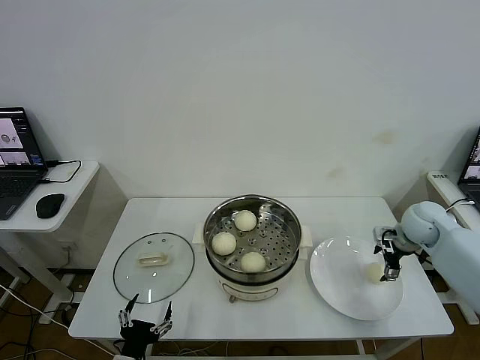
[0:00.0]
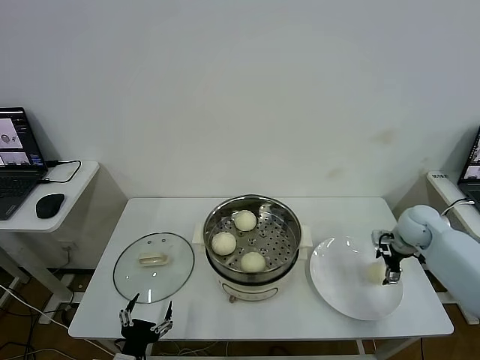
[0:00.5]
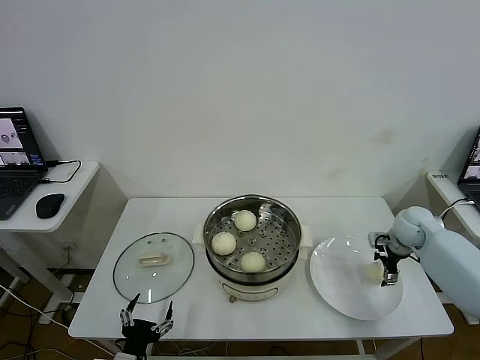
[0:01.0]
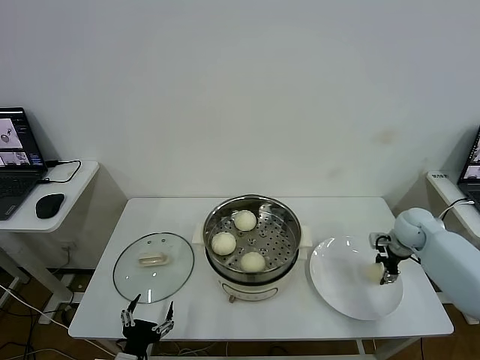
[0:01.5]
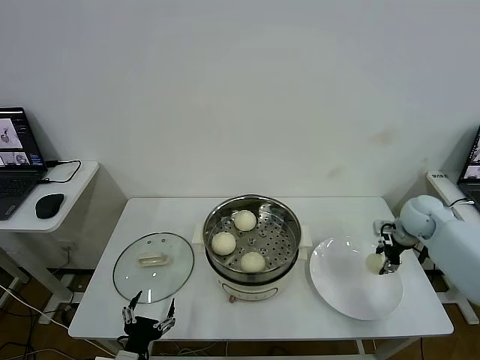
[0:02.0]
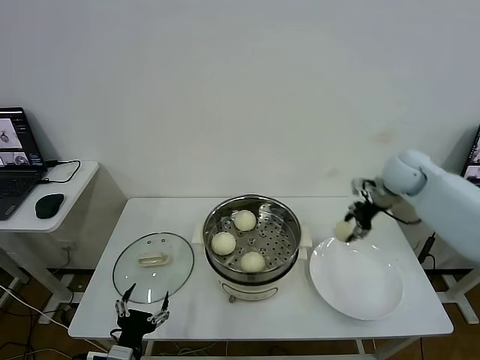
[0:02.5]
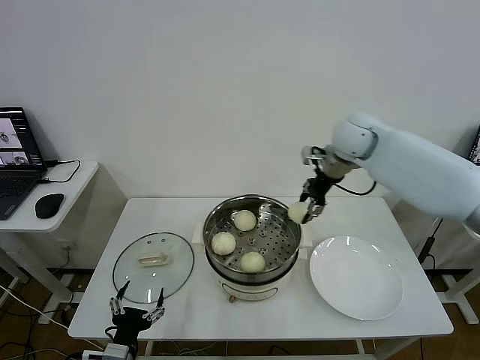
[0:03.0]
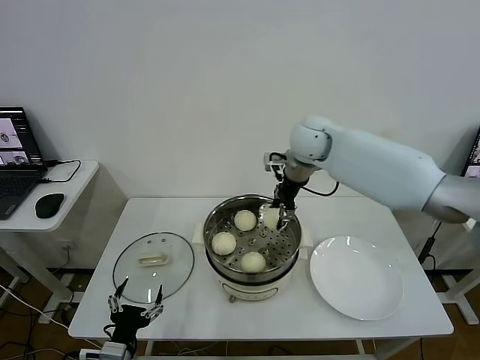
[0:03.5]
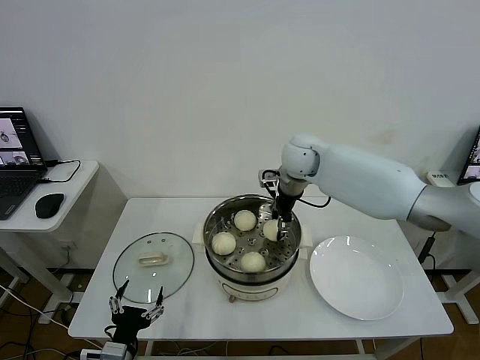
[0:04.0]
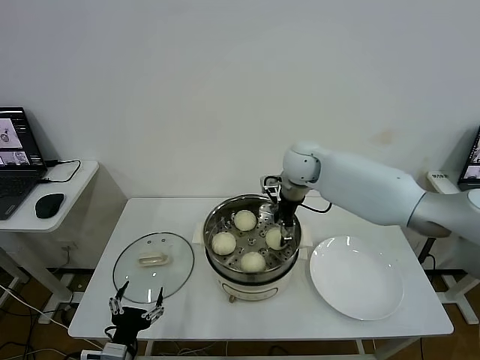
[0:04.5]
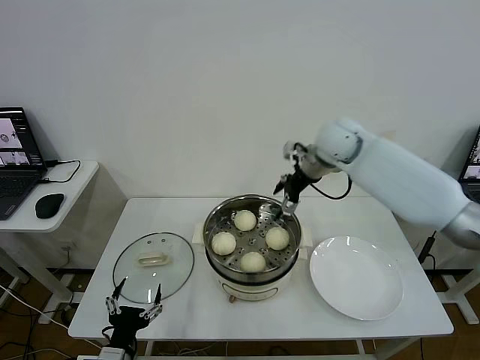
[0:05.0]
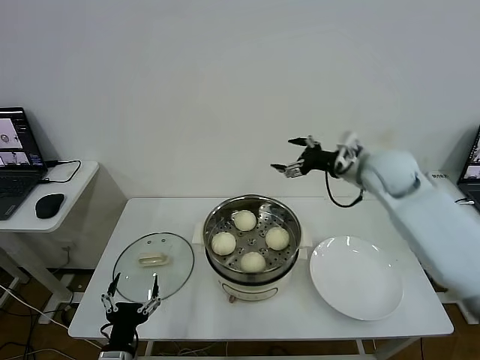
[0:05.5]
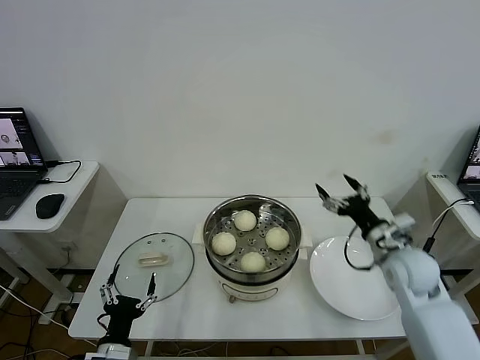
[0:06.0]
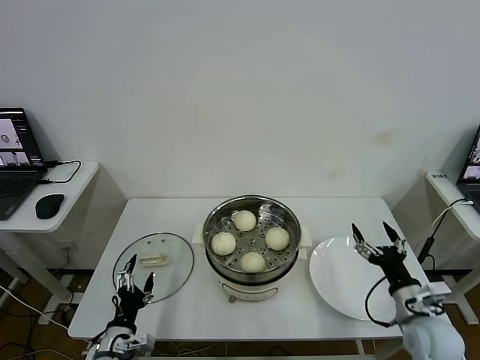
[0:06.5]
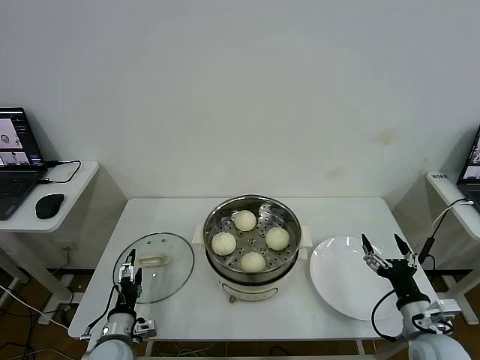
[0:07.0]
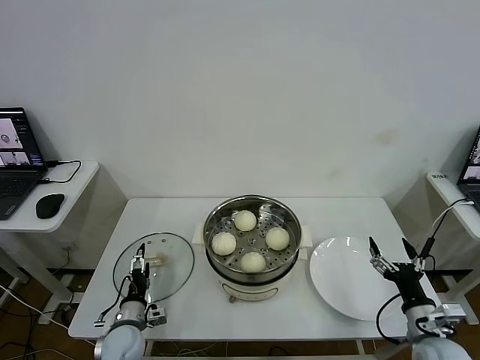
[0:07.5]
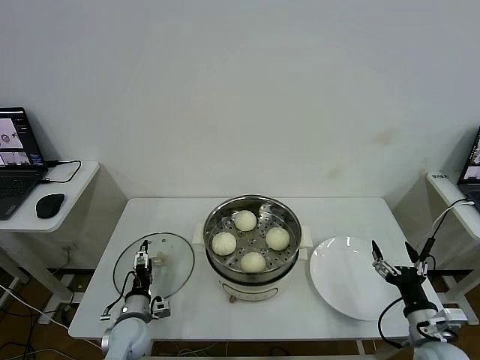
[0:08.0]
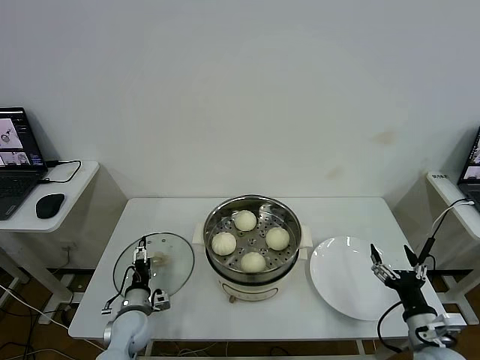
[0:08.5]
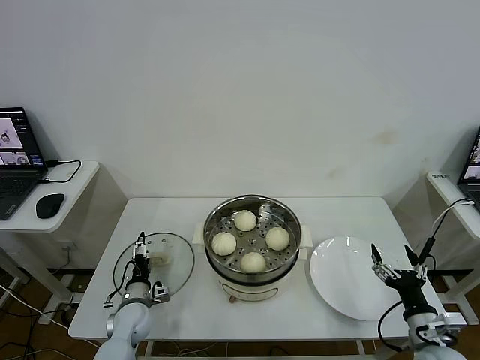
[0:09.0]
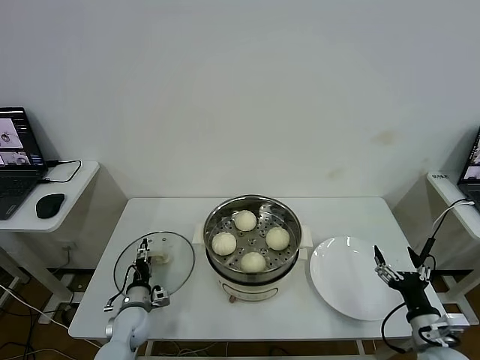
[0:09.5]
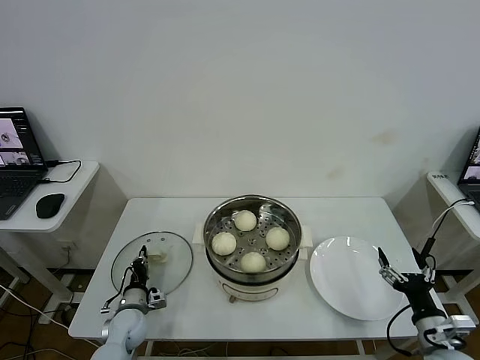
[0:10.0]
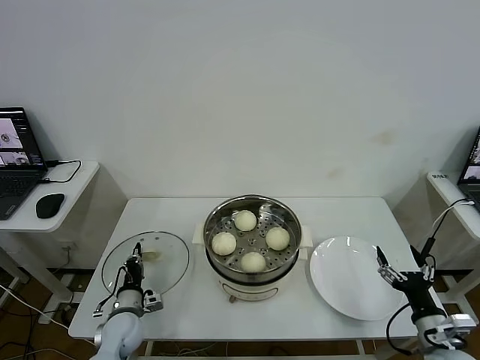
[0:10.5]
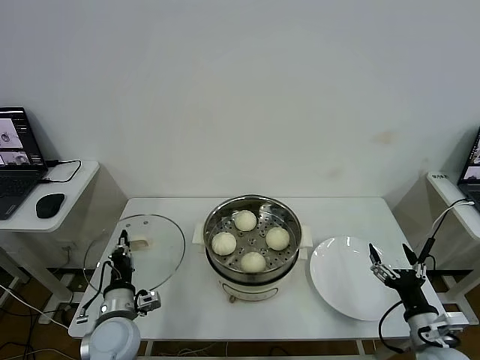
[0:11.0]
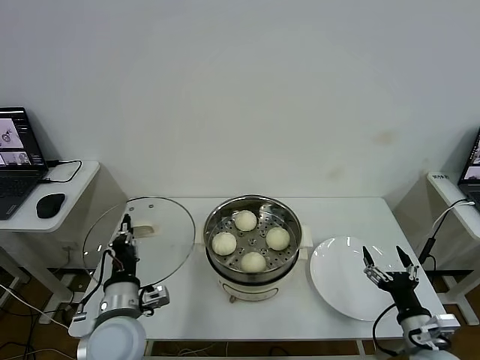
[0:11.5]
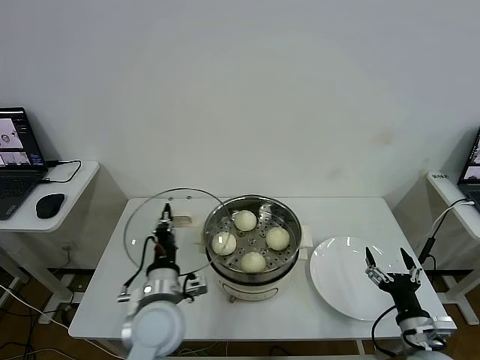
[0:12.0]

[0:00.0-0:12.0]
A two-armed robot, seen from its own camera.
Step, 0:02.0 to 0:04.5: Place the baozi on the steamer with right gripper.
Step, 0:05.0 to 0:10.0: Grasp the pot lid with left gripper.
0:00.0 to 0:02.0: The right gripper closes.
0:02.0 to 0:04.0: The right gripper travels to the left by some 30 cm.
0:04.0 to 0:06.0: The right gripper moves backward, to the right and downward, roughly 35 cm, and opens.
0:06.0 to 0:08.0: The left gripper travels forward and downward by roughly 15 cm, while the right gripper shifts roughly 20 cm backward and downward.
0:08.0 to 0:10.0: The left gripper closes.
0:10.0 to 0:12.0: The left gripper travels upward and to the right by roughly 25 cm.

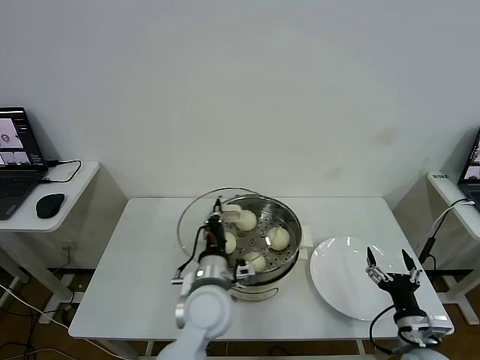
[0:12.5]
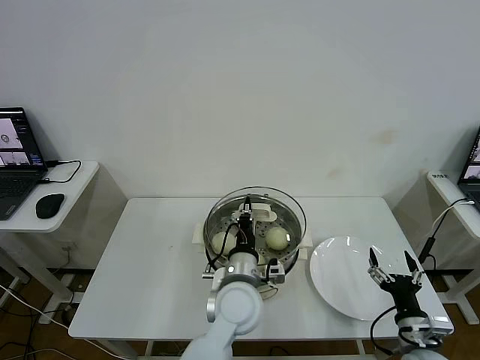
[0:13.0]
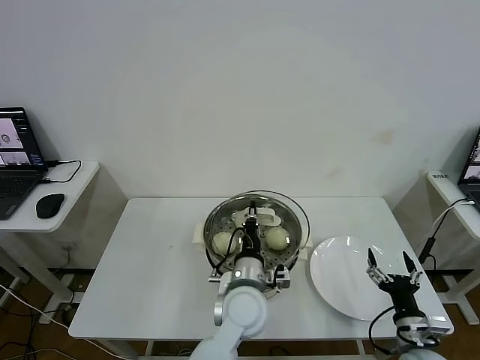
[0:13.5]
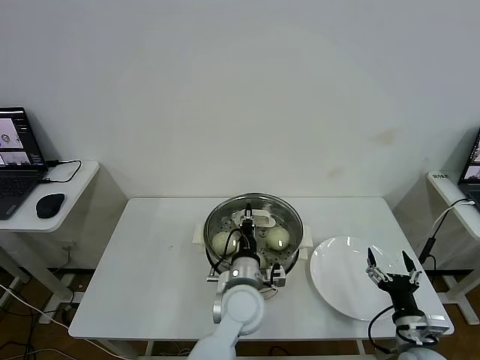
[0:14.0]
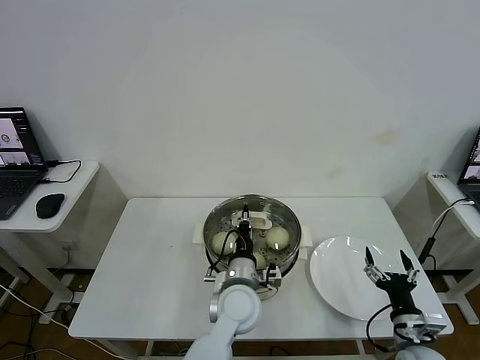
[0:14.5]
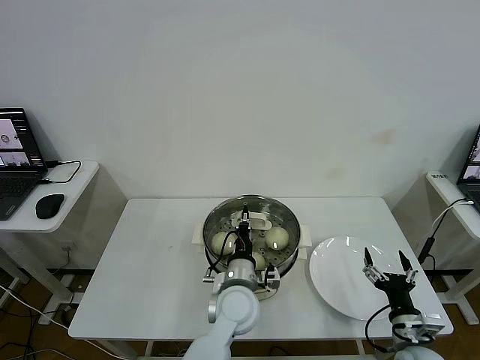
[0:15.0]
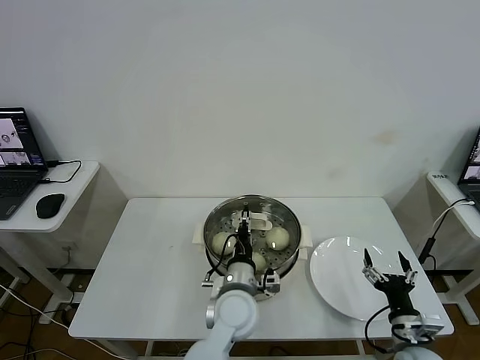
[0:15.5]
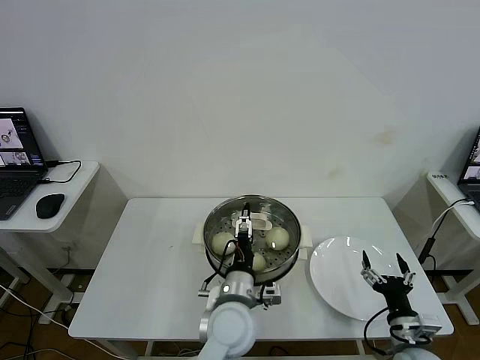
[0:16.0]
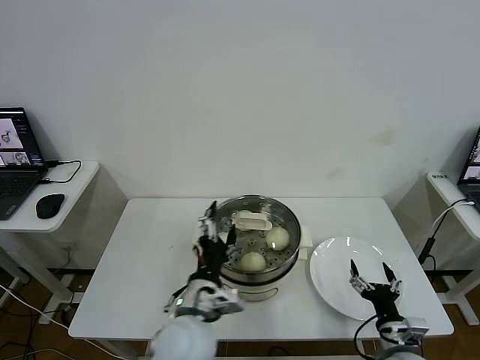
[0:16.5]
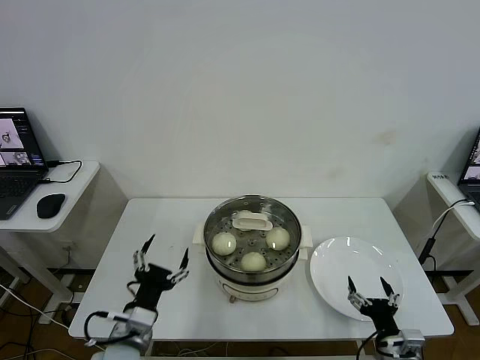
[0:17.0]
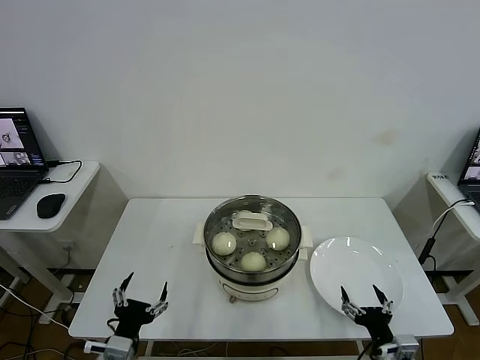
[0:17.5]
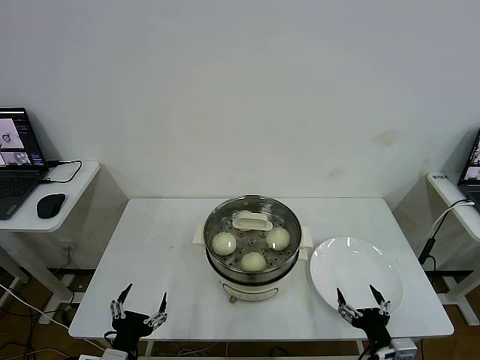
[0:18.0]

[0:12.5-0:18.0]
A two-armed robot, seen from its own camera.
Step, 0:12.5 to 0:15.0: Place the pot lid on the steamer with left gripper.
0:12.5 to 0:14.5: The left gripper is displaced to the right by about 5 cm.
0:14.5 to 0:16.0: The left gripper opens.
0:16.0 to 0:18.0: The left gripper travels to the left and backward by roughly 30 cm; the right gripper goes approximately 5 cm backward.

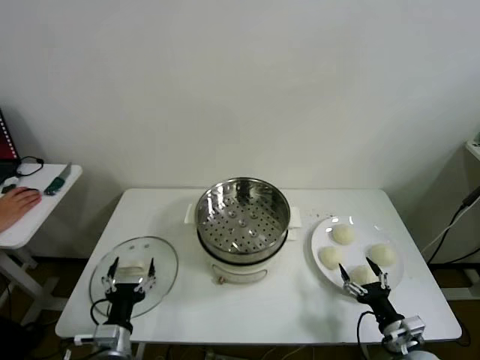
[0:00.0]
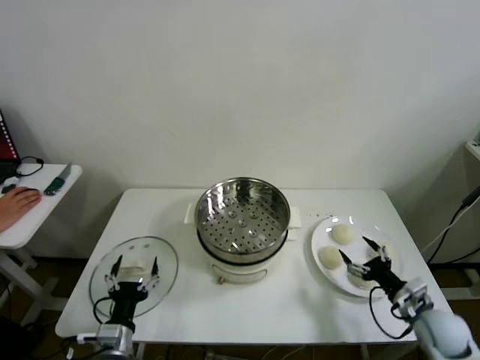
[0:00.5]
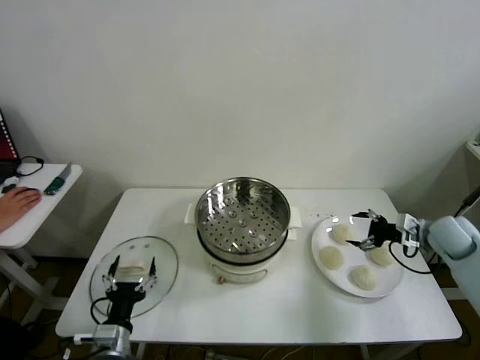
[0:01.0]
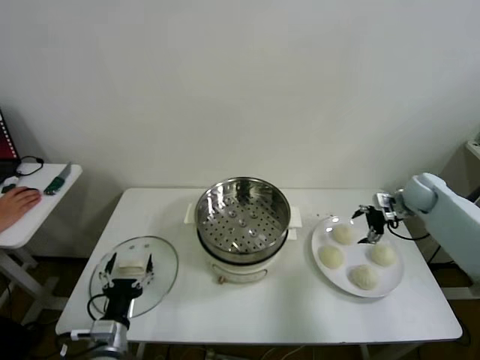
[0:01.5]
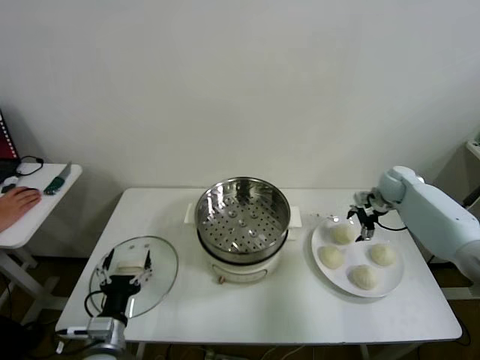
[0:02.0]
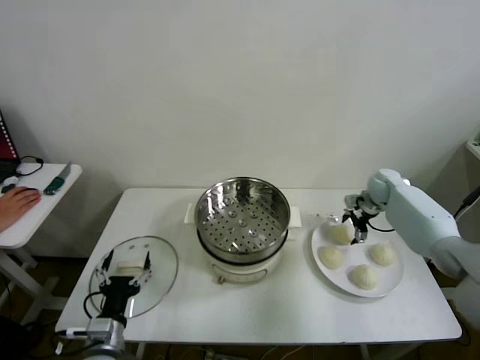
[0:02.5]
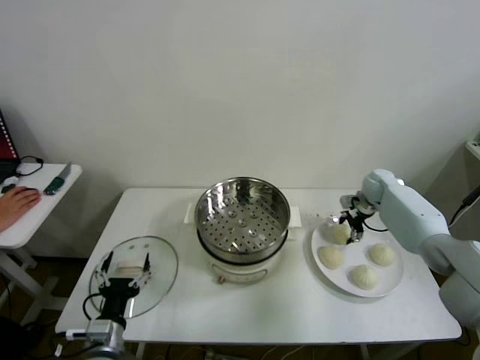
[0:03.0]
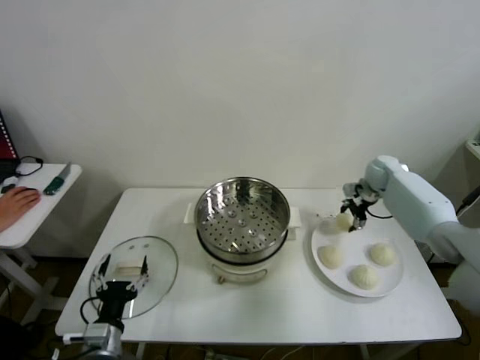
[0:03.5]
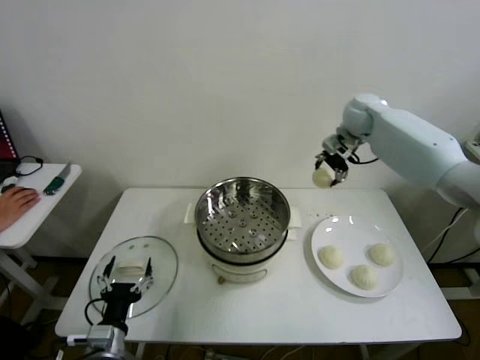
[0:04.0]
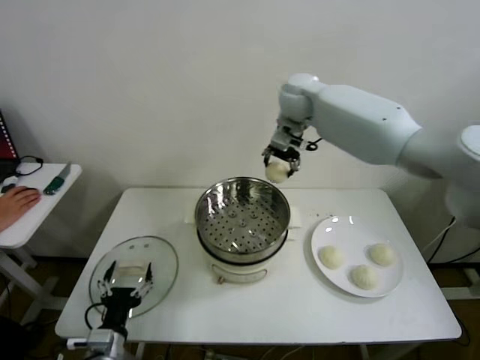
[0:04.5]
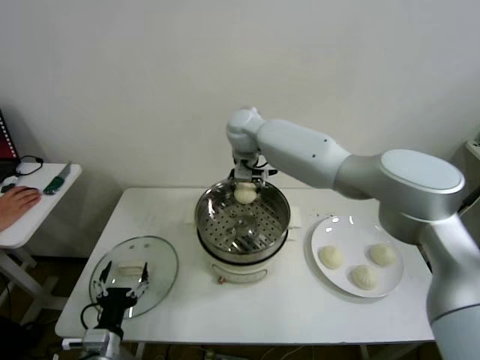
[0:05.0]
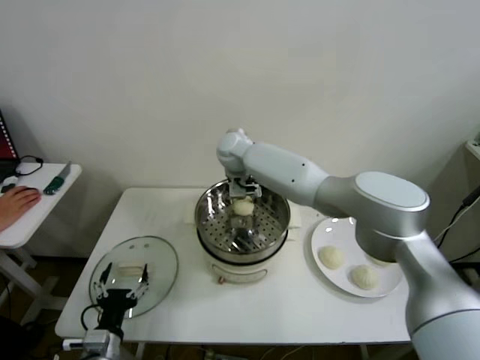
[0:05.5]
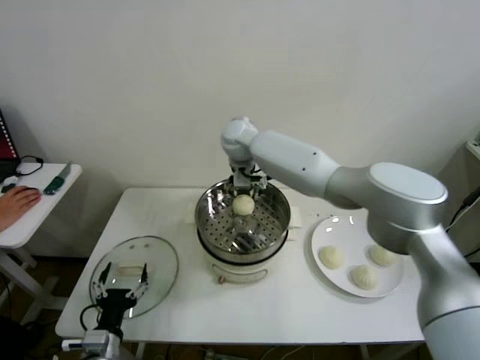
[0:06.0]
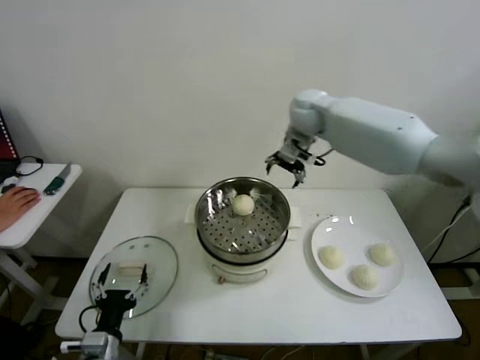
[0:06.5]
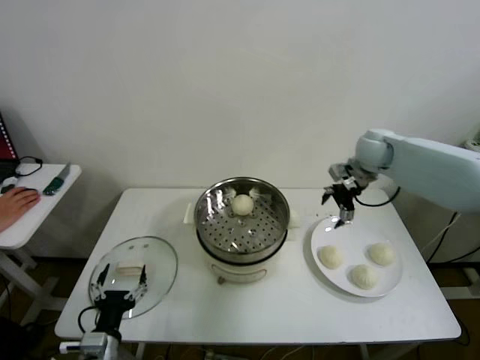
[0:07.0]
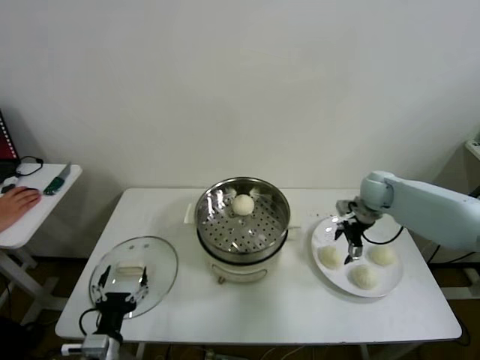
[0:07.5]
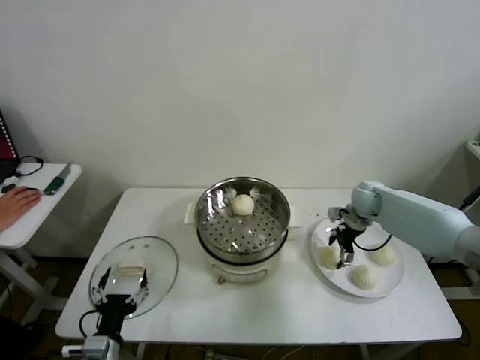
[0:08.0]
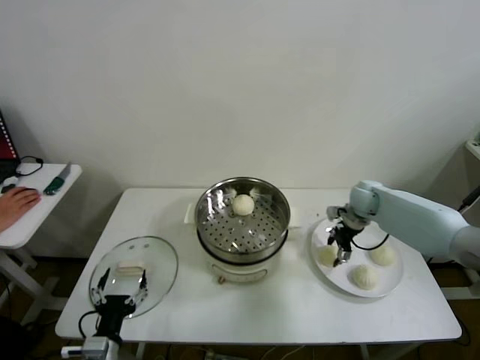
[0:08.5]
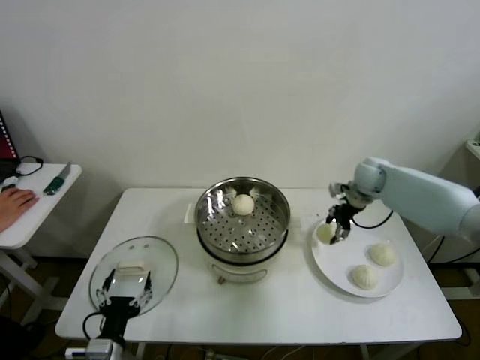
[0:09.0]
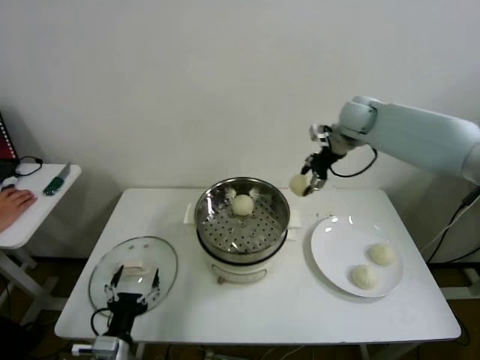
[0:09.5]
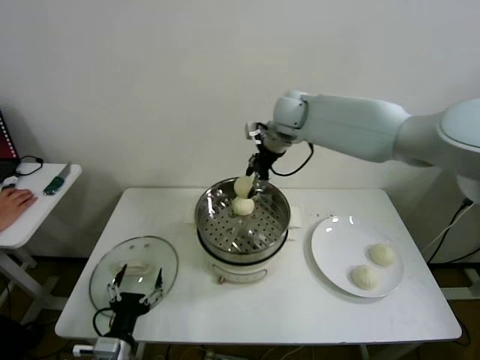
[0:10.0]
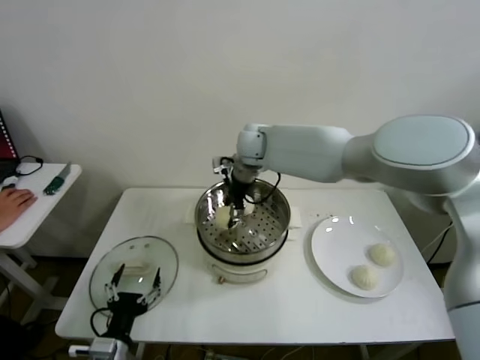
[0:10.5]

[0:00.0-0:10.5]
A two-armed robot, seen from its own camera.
Step, 0:00.0 to 0:02.5: Grasp the baozi in the plate with right gripper.
Step, 0:03.0 to 0:05.5: Place the baozi on the steamer with right gripper.
Step, 0:06.0 to 0:08.0: Grasp the baozi in the plate with right gripper.
0:02.0 to 0:04.0: The right gripper travels upward and to the left by some 25 cm, and closes.
0:04.0 to 0:06.5: The right gripper moves roughly 30 cm to the left and comes back, and opens its fingers.
0:06.5 to 0:08.5: The right gripper moves downward and to the right, approximately 25 cm, and closes up.
0:08.5 to 0:10.5: The right gripper is displaced to the left and upward by some 35 cm.
